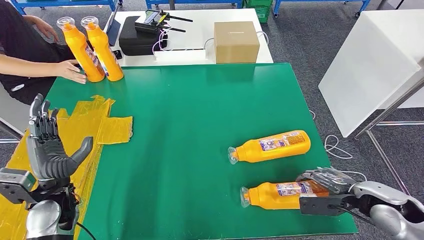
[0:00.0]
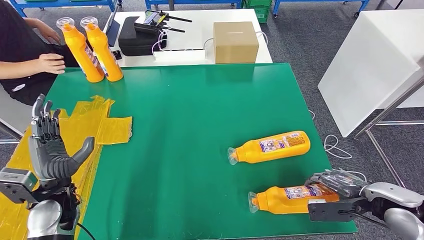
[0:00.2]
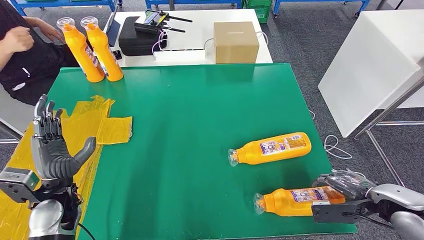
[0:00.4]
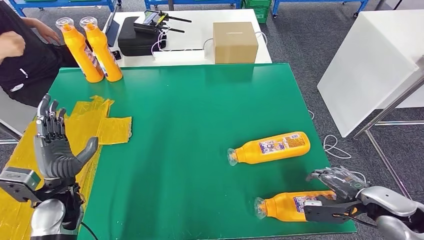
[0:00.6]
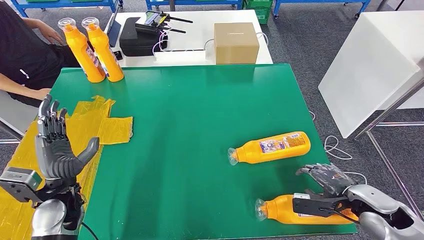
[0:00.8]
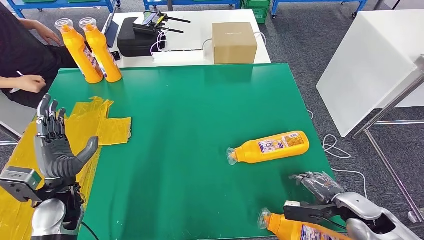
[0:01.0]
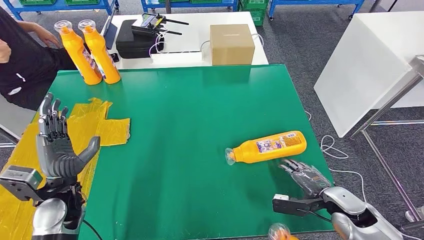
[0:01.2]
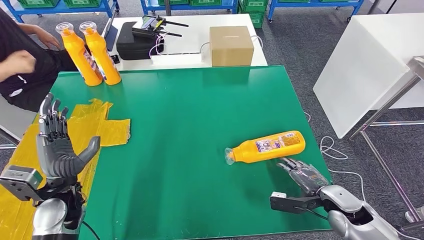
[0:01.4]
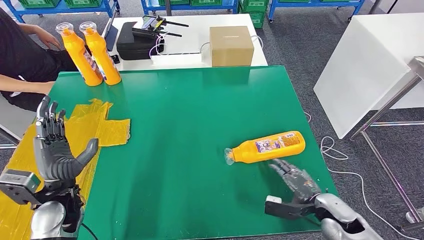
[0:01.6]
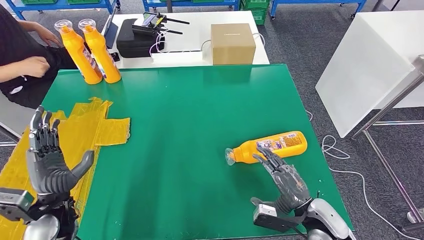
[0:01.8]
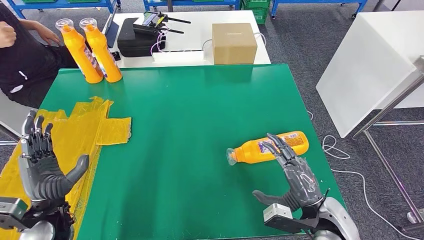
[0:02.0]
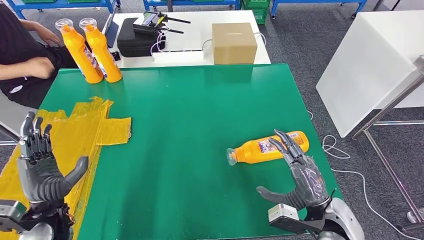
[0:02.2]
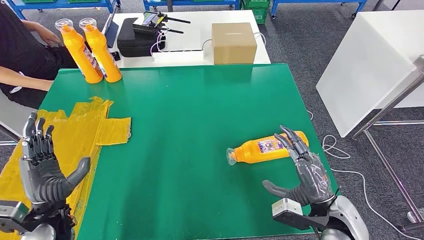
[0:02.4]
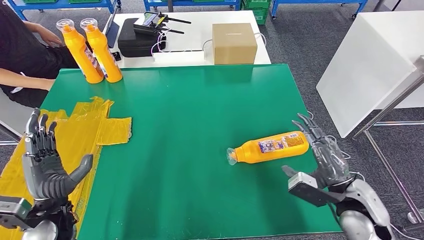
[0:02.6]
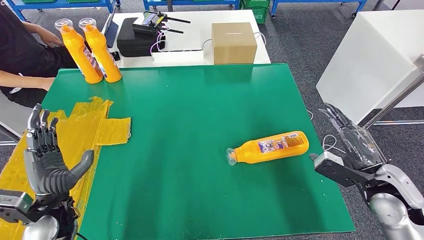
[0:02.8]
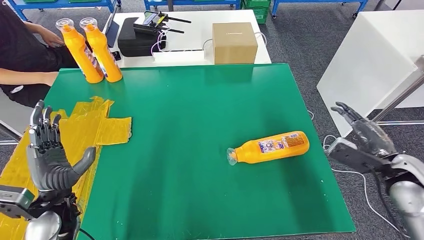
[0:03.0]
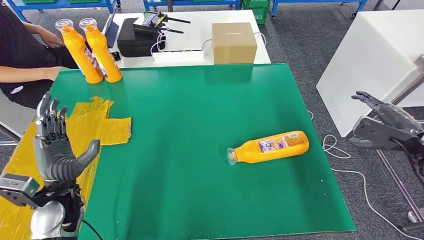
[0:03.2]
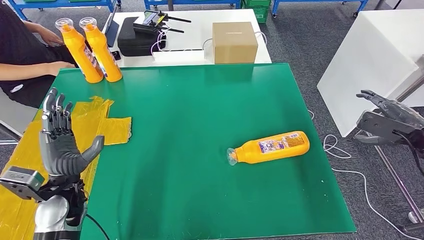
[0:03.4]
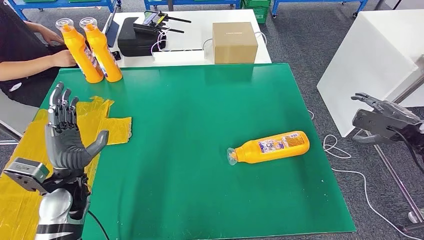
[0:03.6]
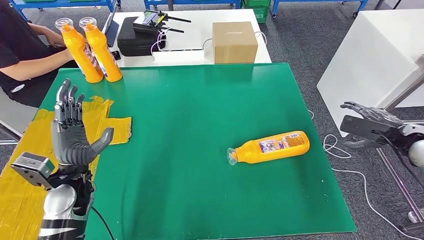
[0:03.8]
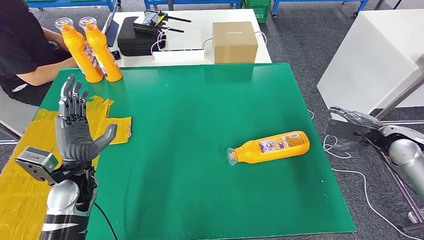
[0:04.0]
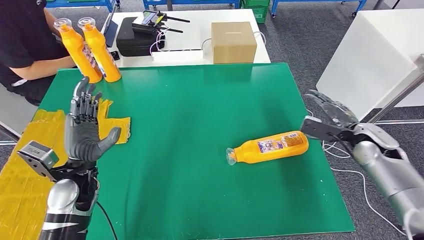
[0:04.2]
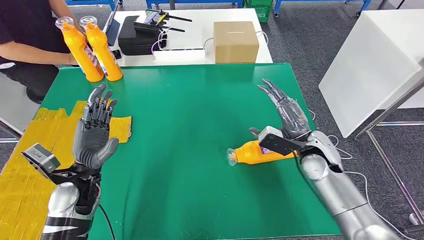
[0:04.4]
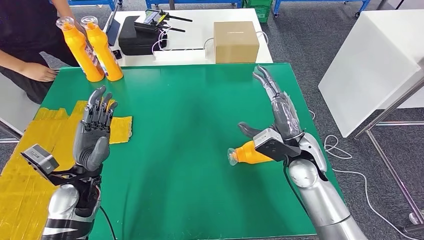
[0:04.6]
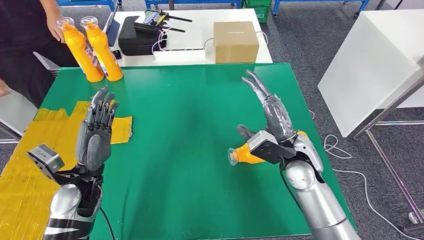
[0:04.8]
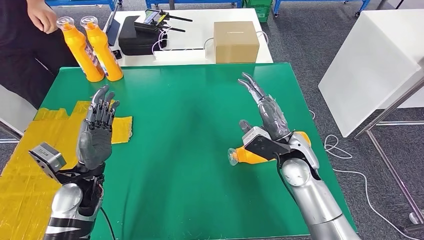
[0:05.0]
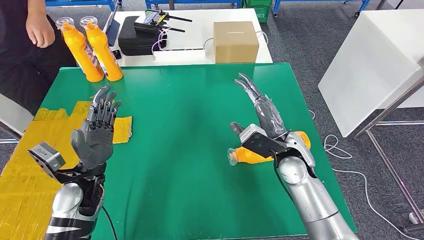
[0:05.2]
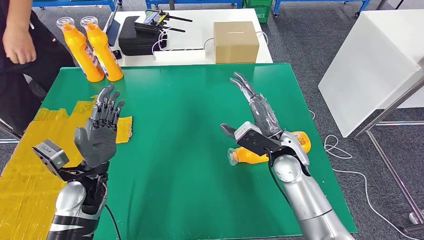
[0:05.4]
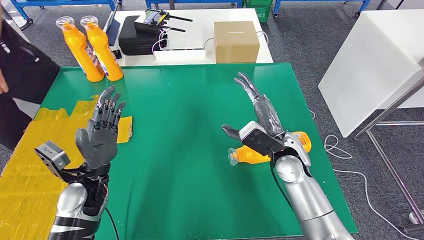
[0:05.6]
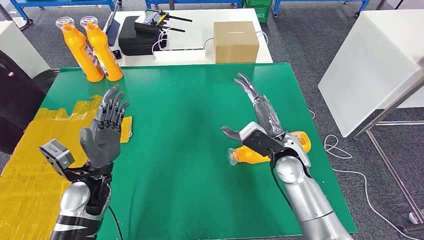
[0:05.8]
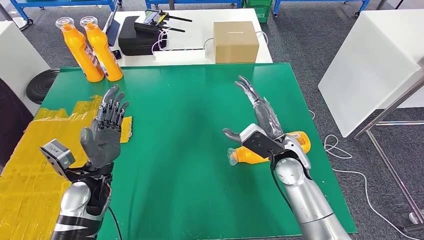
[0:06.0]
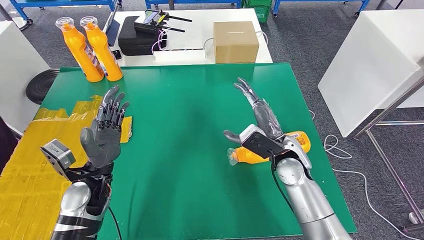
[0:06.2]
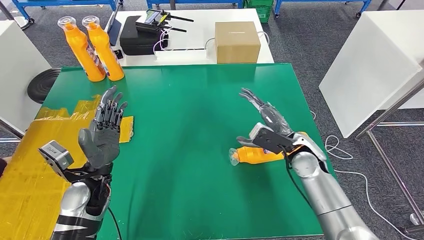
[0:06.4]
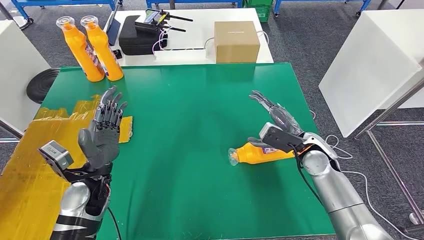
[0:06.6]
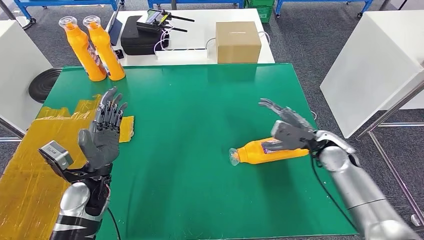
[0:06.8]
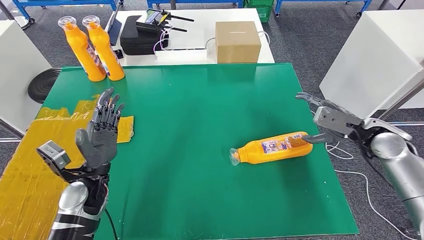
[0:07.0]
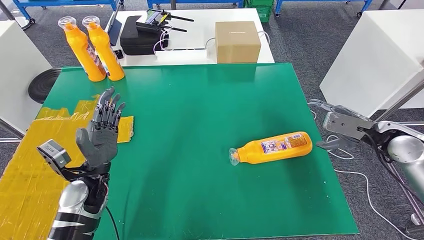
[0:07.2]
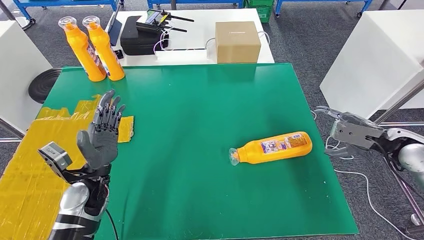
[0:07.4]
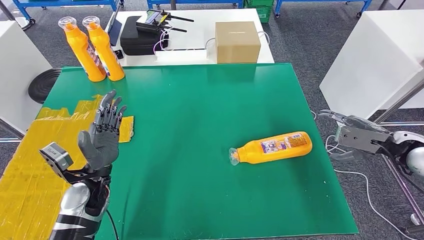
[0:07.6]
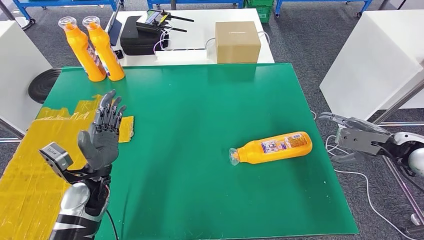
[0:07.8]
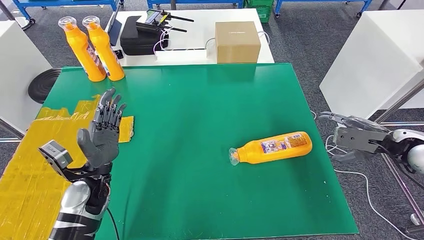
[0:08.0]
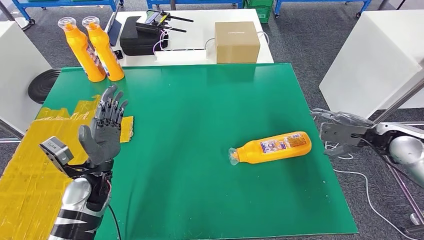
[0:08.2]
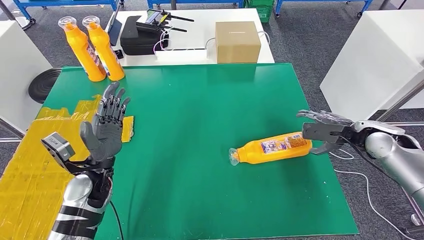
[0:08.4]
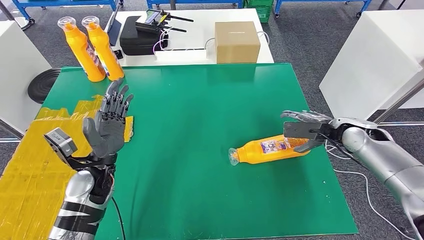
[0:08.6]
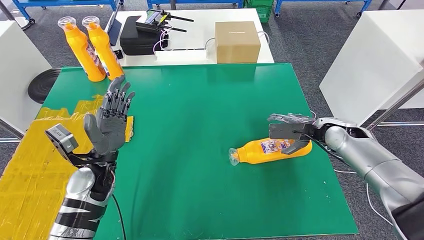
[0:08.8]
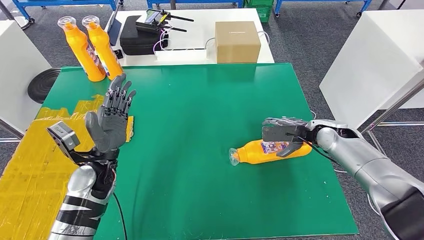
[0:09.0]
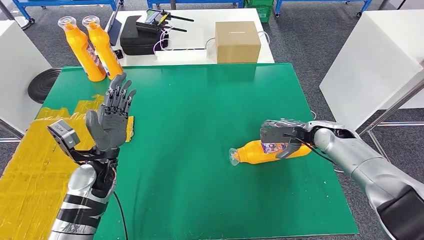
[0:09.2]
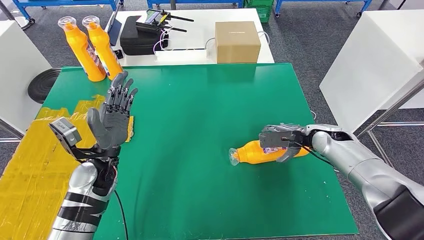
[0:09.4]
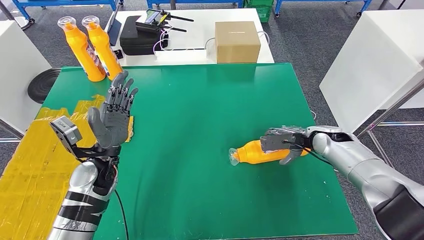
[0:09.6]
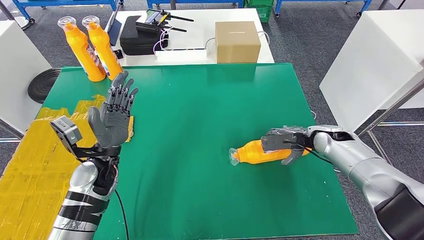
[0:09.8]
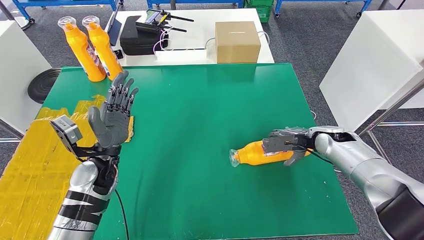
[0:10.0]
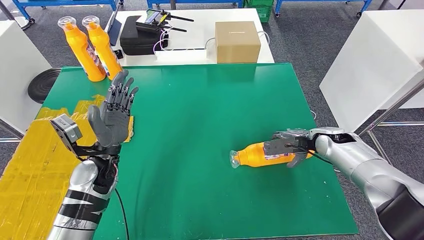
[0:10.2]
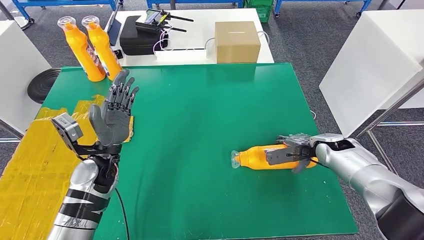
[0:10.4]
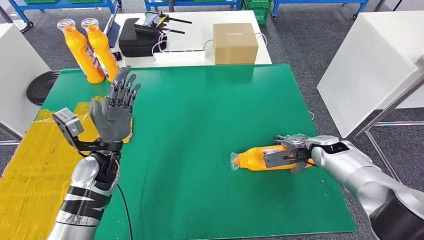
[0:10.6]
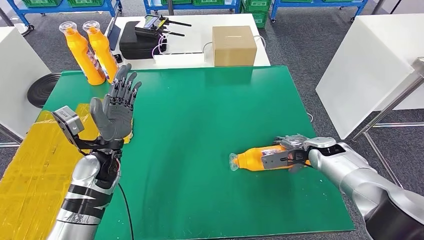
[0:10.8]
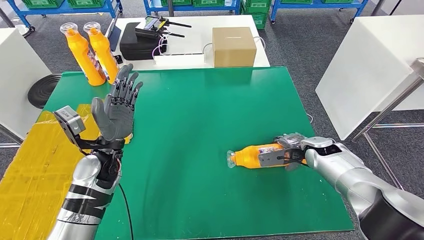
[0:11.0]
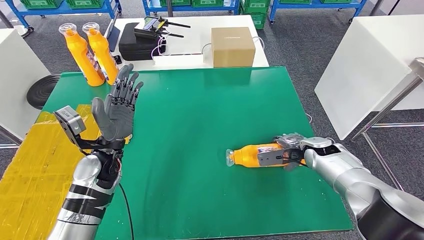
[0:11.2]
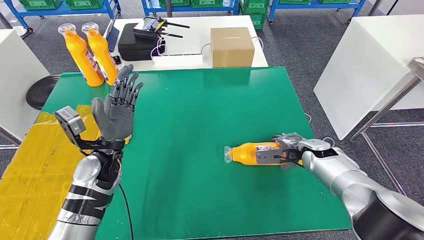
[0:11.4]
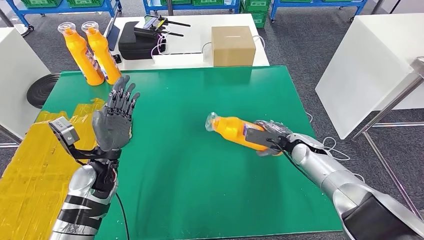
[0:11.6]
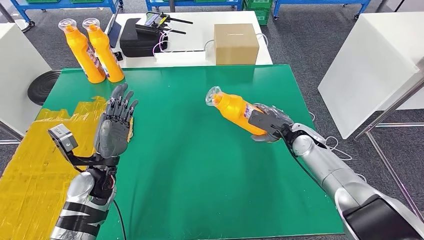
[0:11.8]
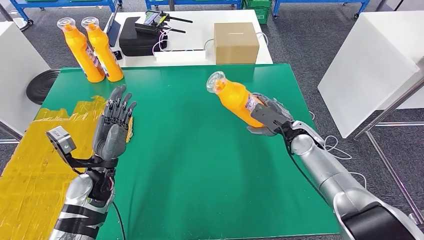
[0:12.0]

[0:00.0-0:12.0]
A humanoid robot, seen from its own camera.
0:06.0 to 0:07.6: The right hand is displaced to the right by some 25 cm.
0:07.6 to 0:09.0: The right hand heads to the left, forward and downward, covering some 15 cm.
0:09.0 to 0:10.4: The right hand ends up roughly 5 cm from where it was.

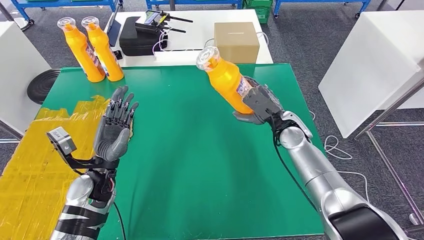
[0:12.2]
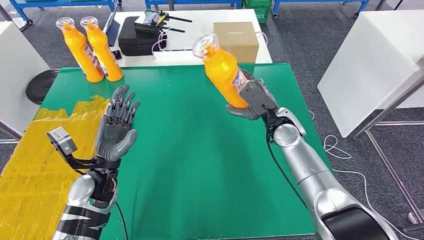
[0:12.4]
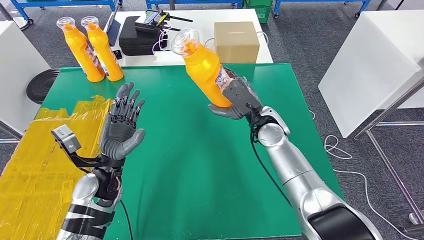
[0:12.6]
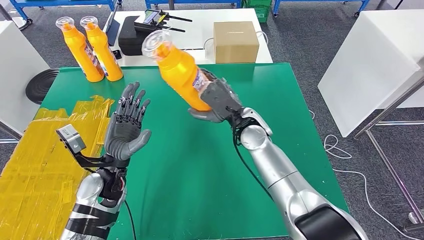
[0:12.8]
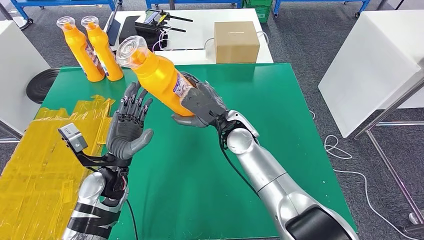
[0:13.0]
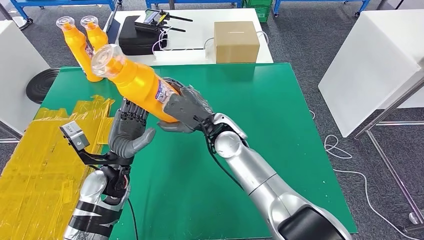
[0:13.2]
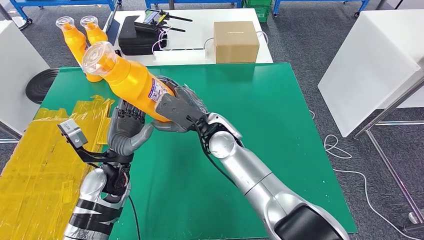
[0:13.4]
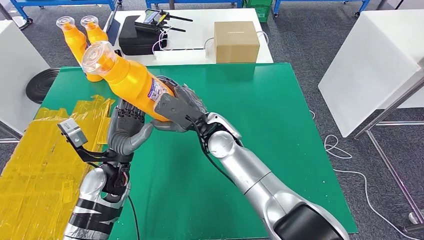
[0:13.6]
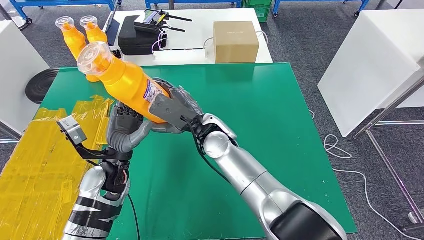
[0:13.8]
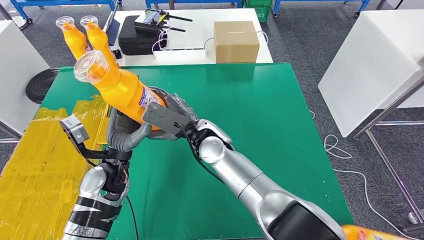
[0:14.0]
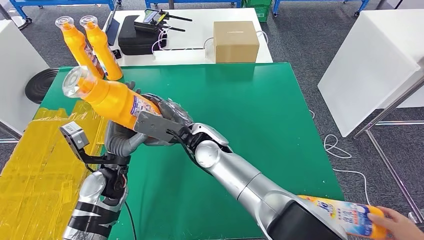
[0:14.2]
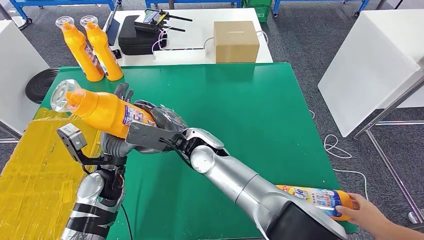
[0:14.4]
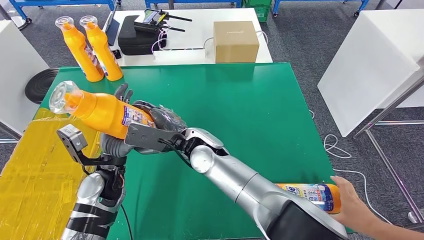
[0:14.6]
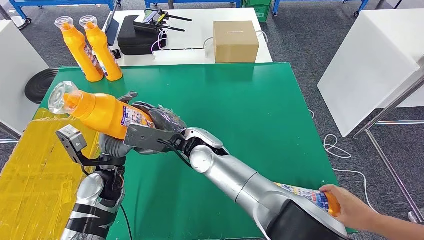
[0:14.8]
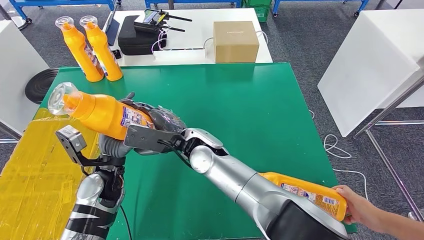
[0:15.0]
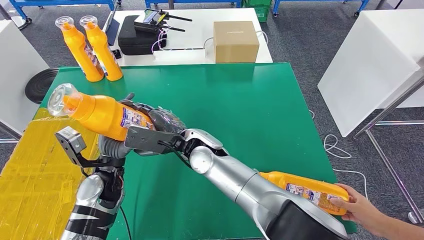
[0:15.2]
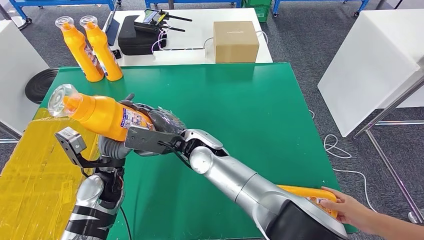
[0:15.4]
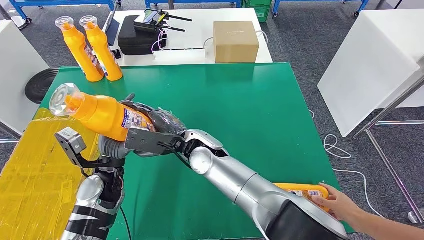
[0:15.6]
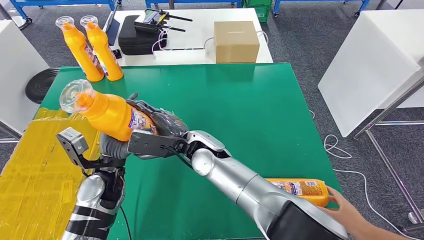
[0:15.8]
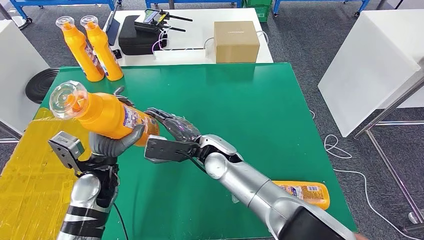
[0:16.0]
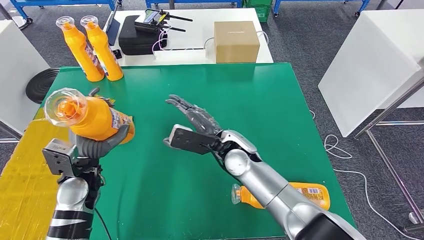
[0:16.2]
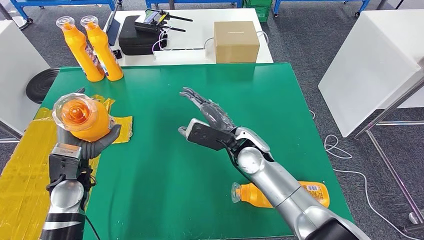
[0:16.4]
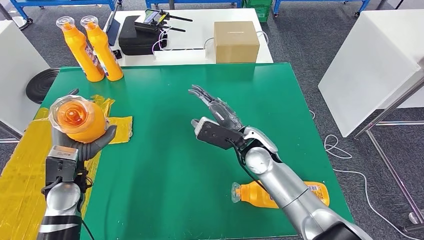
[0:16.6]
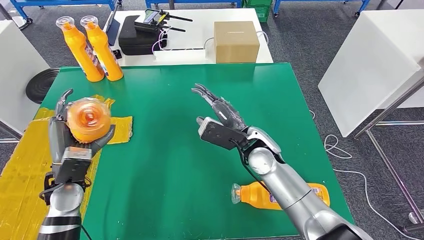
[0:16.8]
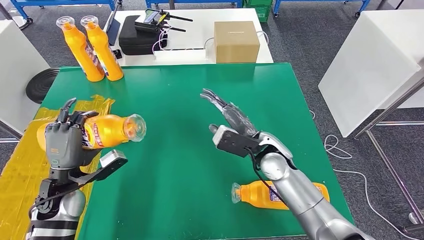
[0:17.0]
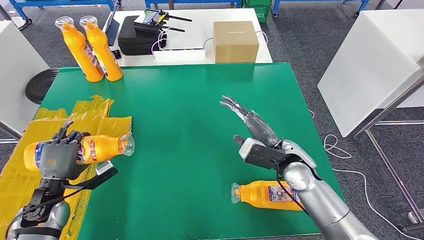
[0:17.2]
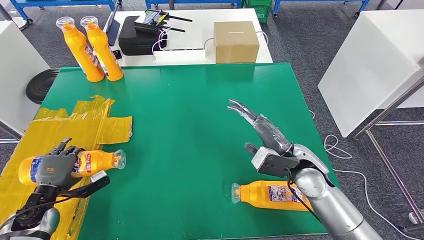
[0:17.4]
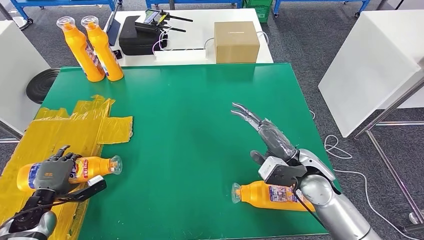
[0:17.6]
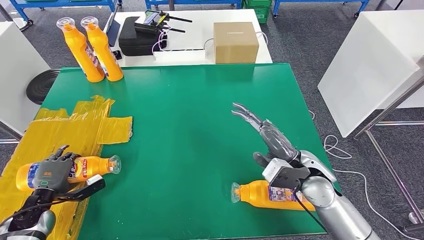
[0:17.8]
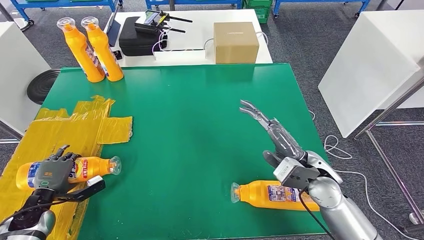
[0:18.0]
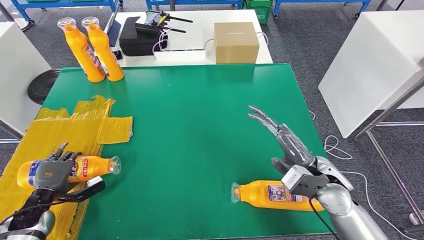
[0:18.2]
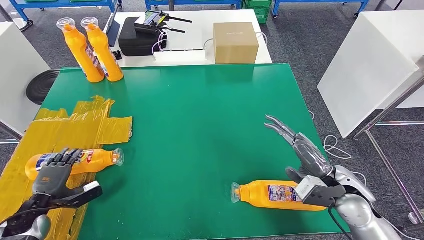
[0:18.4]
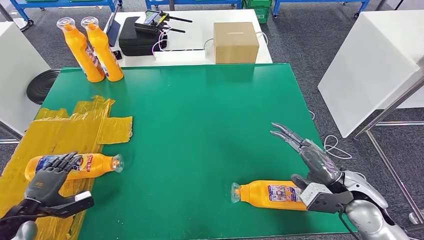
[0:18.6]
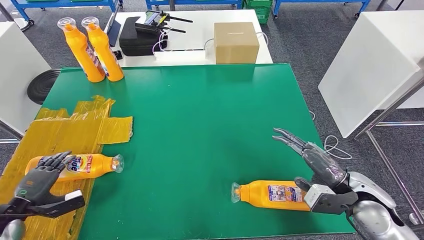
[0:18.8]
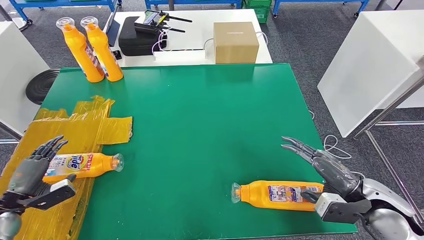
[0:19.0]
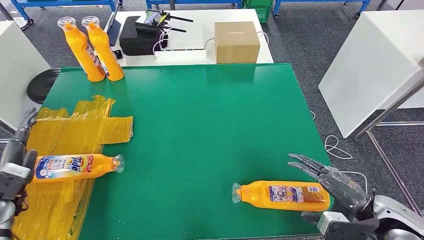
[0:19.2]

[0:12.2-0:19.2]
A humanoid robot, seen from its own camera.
Step, 0:13.2 to 0:18.4: Flip the fast-moving consumer goods bottle to the front side.
0:17.8 to 0:19.2: The right hand shifts roughly 20 cm to the right and backward, while the left hand moves upward, about 10 cm.
